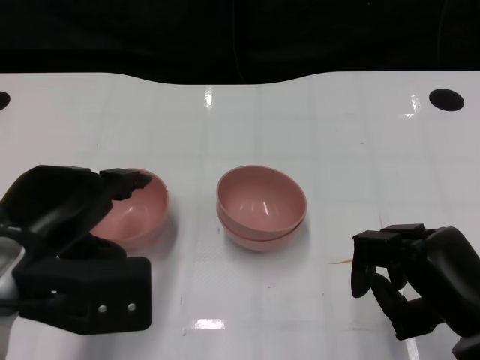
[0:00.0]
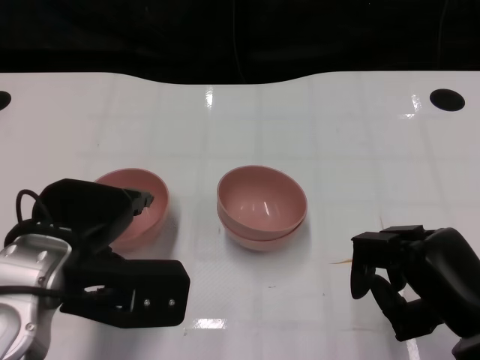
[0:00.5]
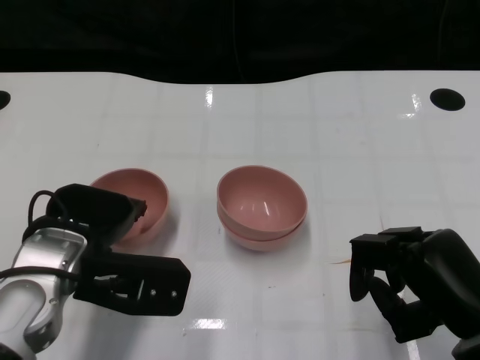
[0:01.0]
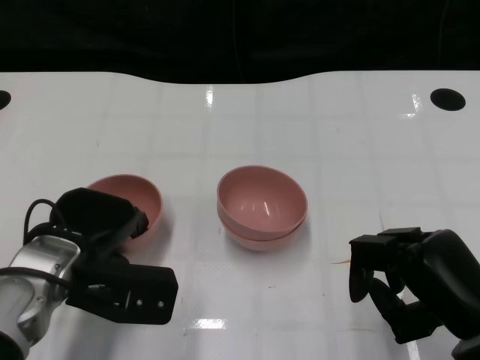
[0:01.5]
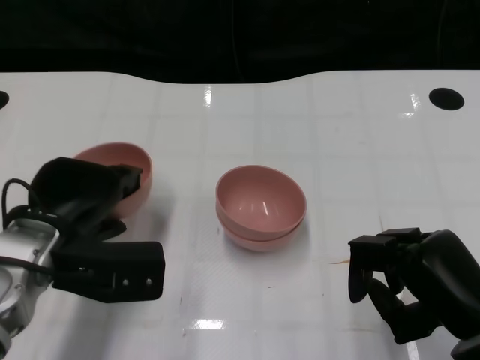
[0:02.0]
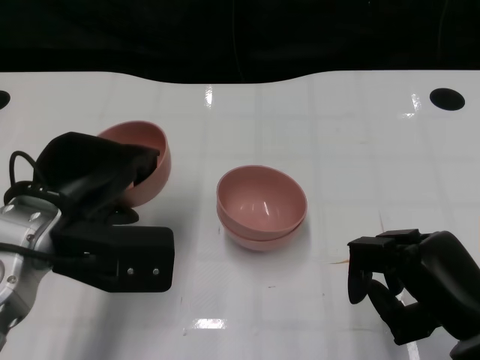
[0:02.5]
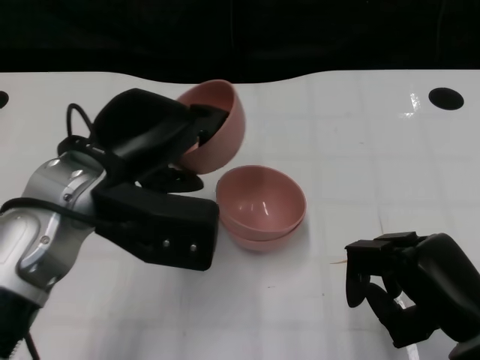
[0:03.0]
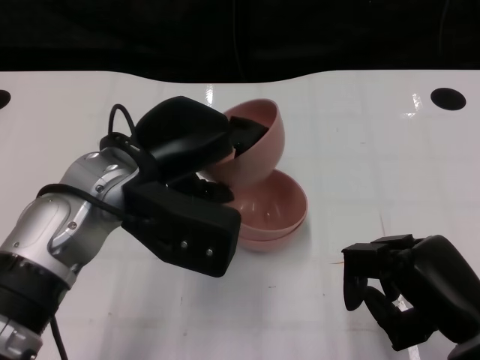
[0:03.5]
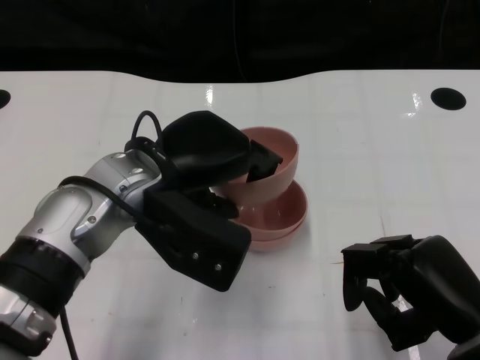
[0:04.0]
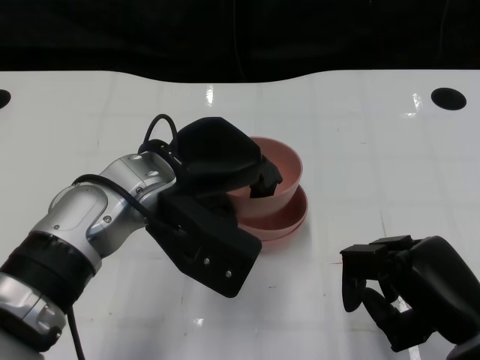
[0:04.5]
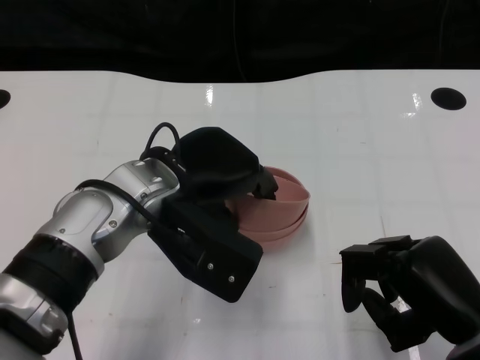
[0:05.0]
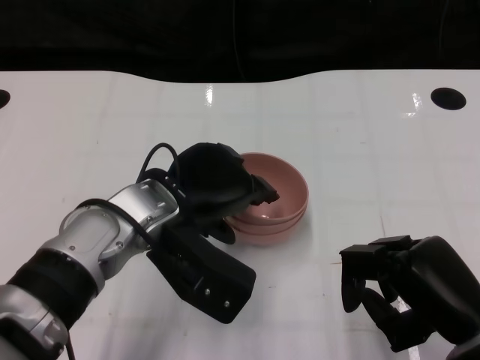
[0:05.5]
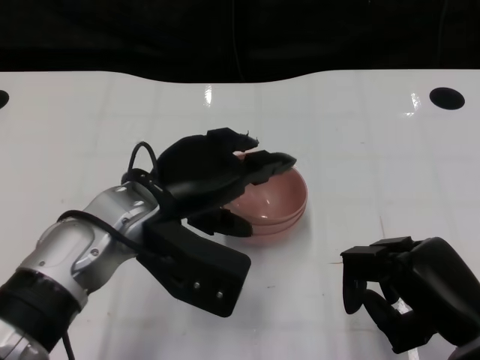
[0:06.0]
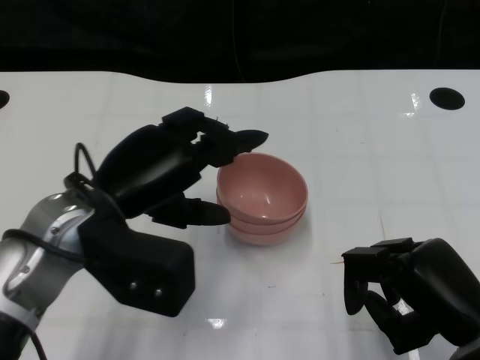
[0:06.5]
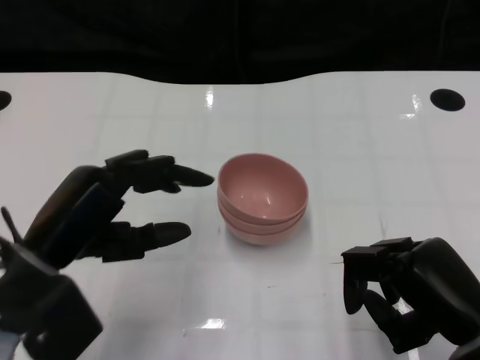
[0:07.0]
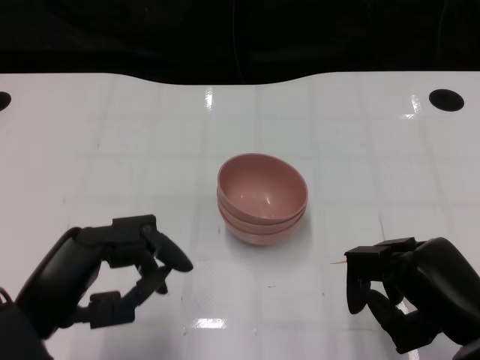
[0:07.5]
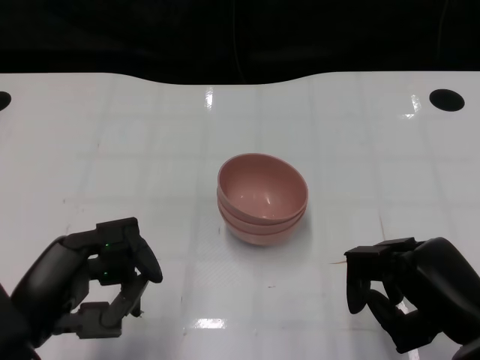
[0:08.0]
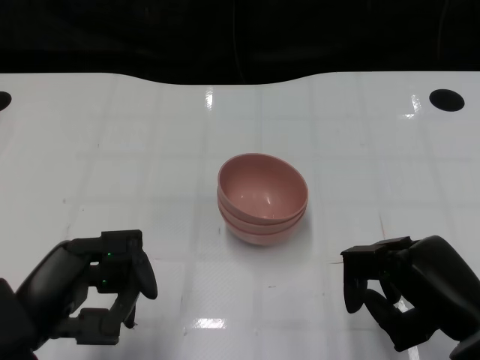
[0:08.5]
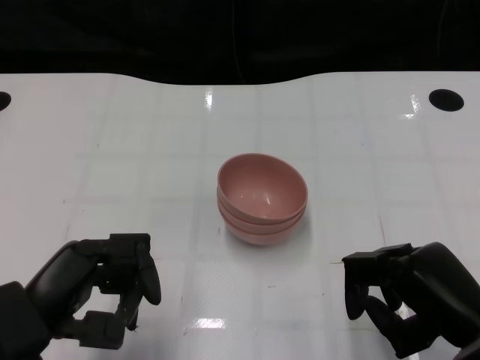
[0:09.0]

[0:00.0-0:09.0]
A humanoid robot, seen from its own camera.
Task of the whole recording: Pick up the bowl on one side of the table and place it on top of the middle bowl, then pick up the bowl on the other side of the table and place it on top of the middle bowls.
Step, 0:02.0 to 0:06.5: Place the bowl on the left onto the bowl in the middle with left gripper.
0:00.0 to 0:02.0: The left hand shifts approximately 5 cm downward and forward.
0:02.0 to 0:04.5: The left hand heads to the right and upward, covering some 10 cm.
0:04.5 to 0:07.0: The left hand is displaced to the left and backward by about 15 cm.
0:07.0 to 0:09.0: The left hand travels backward by roughly 5 cm.

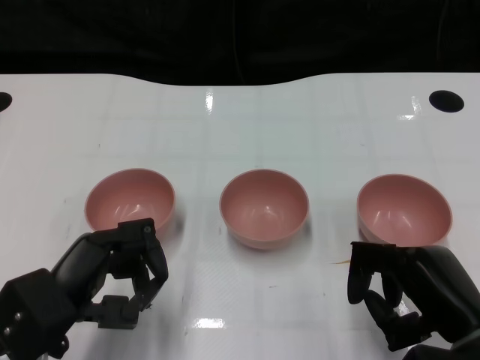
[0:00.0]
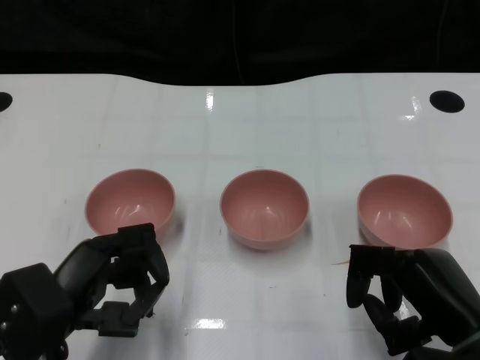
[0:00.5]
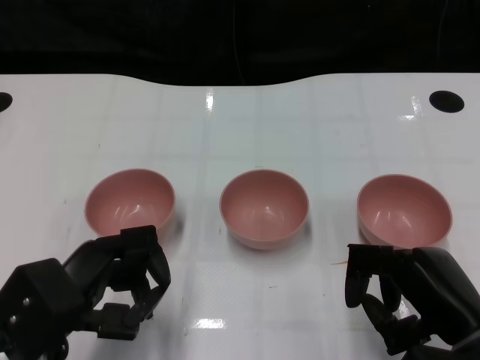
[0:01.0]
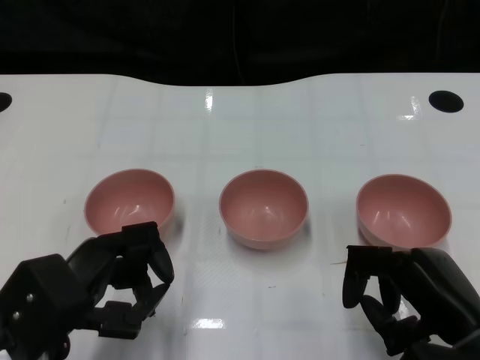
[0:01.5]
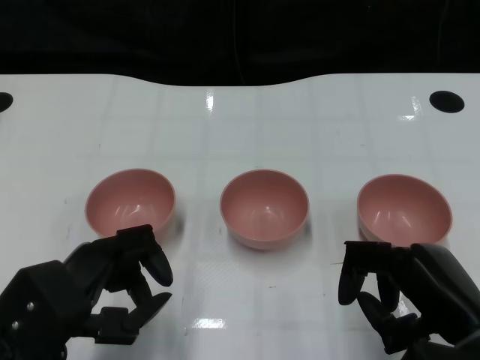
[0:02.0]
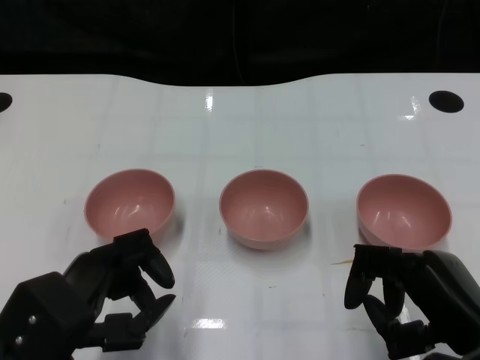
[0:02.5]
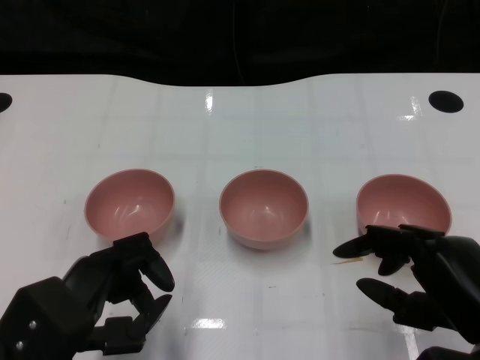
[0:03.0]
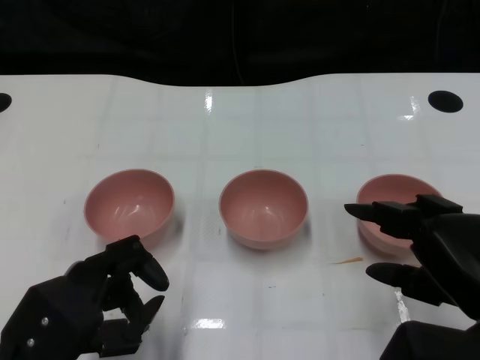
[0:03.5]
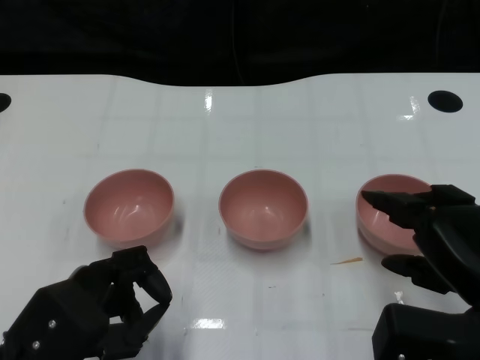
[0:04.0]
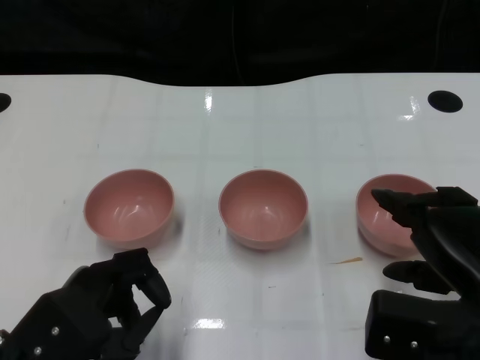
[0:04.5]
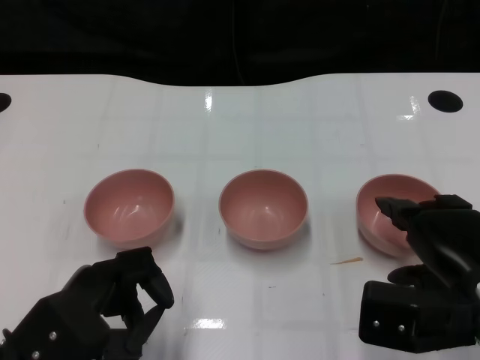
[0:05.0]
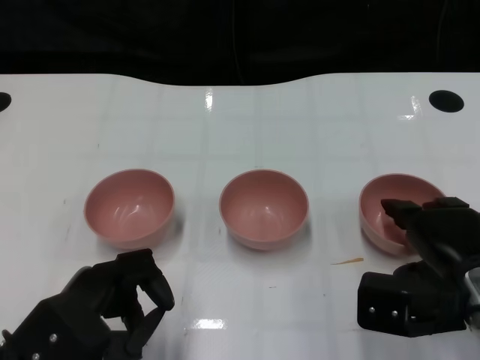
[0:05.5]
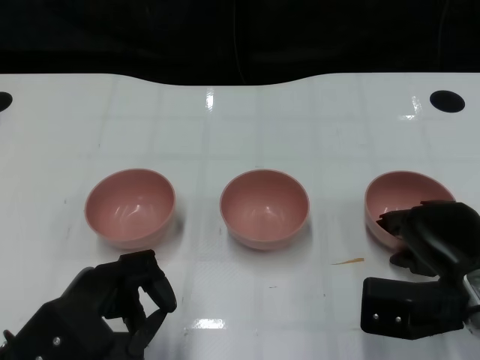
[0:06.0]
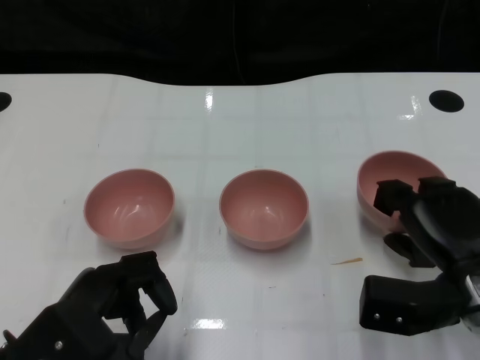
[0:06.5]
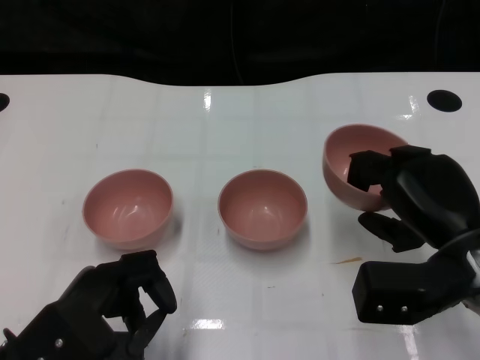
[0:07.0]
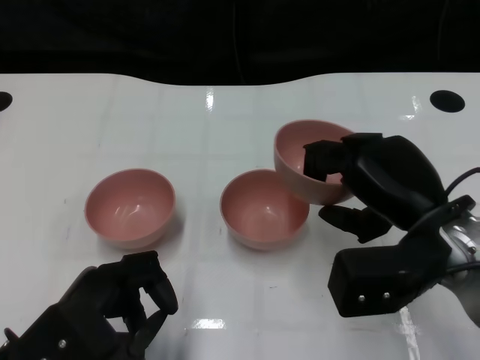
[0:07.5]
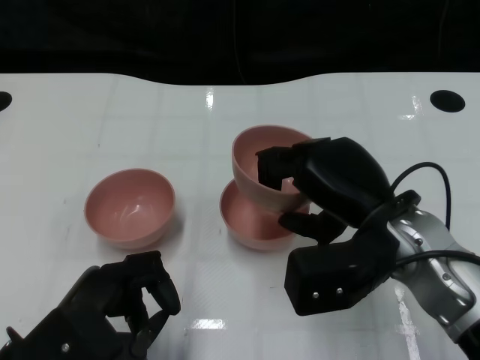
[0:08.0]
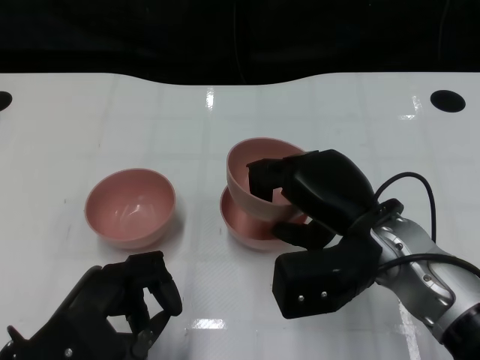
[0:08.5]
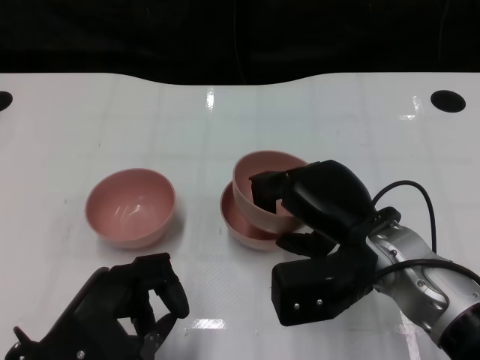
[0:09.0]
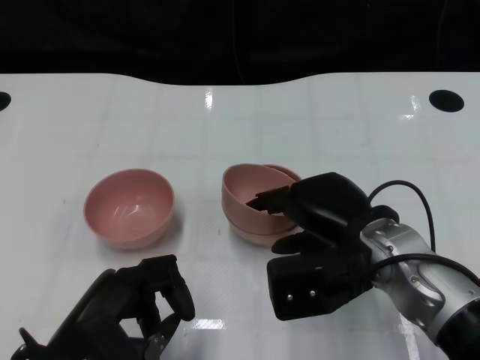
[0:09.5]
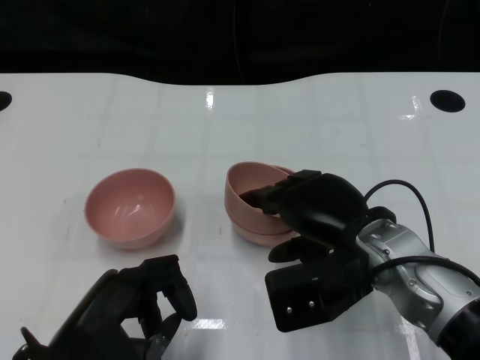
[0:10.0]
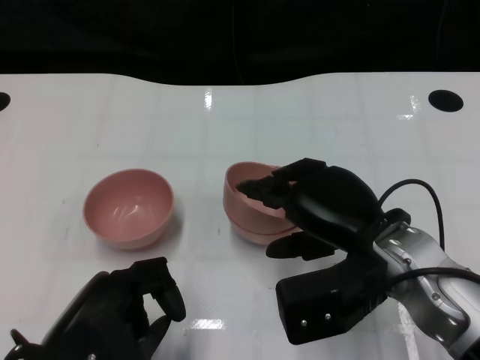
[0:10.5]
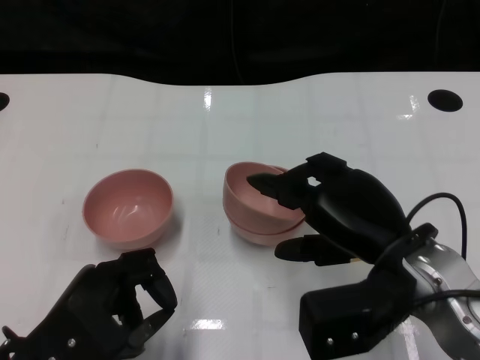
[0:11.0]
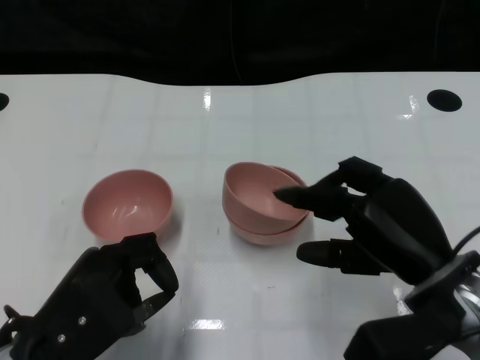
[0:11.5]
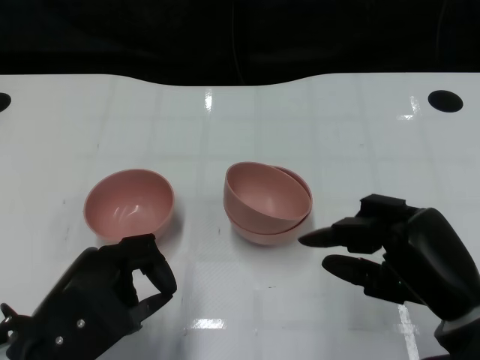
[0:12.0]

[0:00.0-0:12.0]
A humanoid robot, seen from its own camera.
Task of the whole recording: Pick up the bowl on one side of the table and place it on top of the middle bowl, then pick up the bowl on the other side of the table and place it on top of the middle bowls.
Step, 0:03.0 to 0:06.0: Grasp the bowl on the right with the right gripper.
Step, 0:06.5 to 0:11.0: Place the bowl on the right onto the bowl in the middle with right gripper.
0:04.0 to 0:06.0: The right hand shifts approximately 10 cm downward and forward.
0:06.0 to 0:08.0: The right hand moves to the left and upward, about 10 cm.
0:08.0 to 0:10.0: The hands move only a little.
0:10.0 to 0:12.0: The right hand travels to the right and backward by approximately 10 cm.

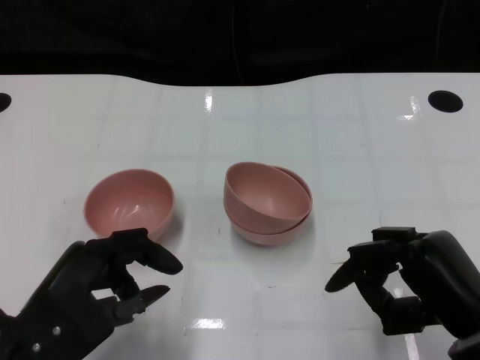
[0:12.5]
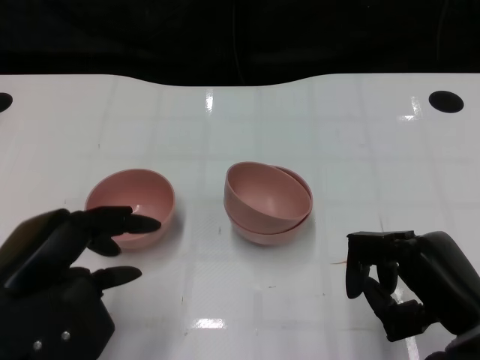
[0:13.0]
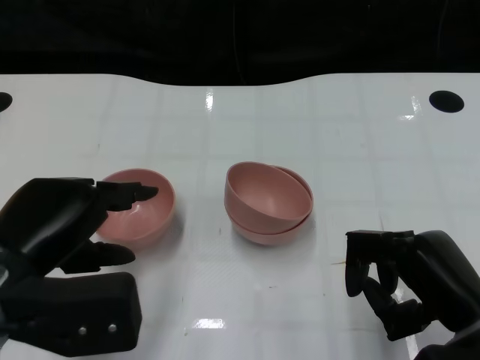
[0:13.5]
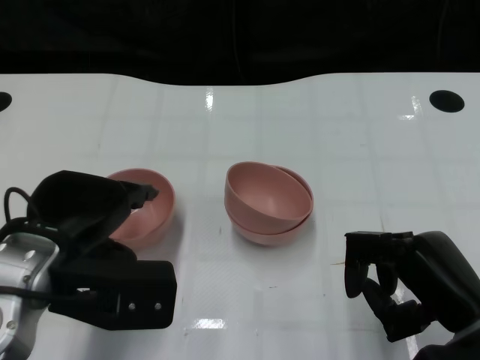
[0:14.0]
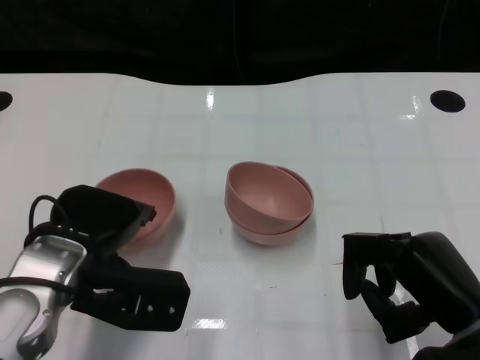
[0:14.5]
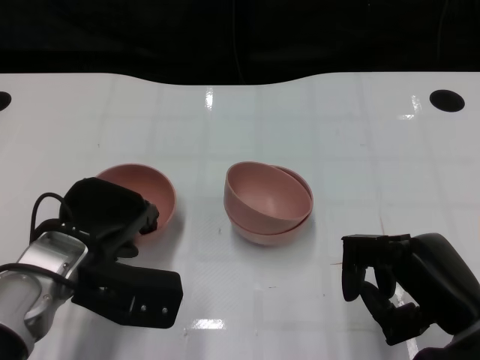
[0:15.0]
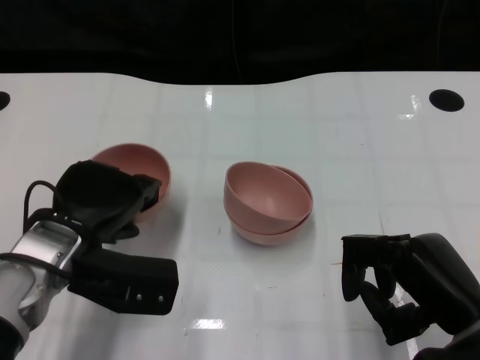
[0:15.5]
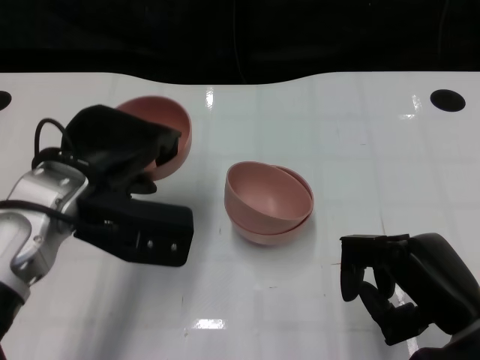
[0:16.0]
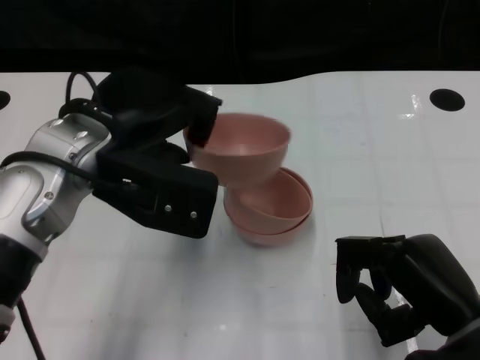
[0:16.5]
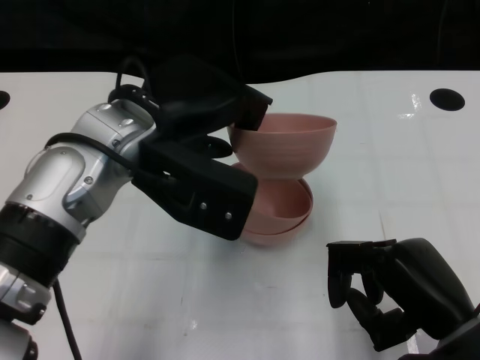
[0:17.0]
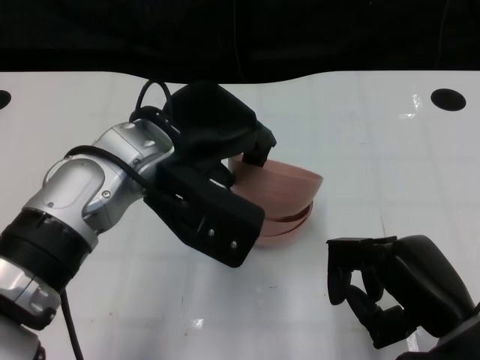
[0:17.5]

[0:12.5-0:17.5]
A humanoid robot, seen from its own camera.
Task of the whole recording: Pick up the bowl on one side of the table and place it on top of the middle bowl, then pick up the bowl on the other side of the table and place it on top of the middle bowls.
Step, 0:12.5 to 0:15.0: Grasp the bowl on the left with the left gripper.
0:12.5 to 0:15.0: The left hand heads forward, covering some 10 cm.
0:15.0 to 0:17.5: The left hand moves upward and to the right, roughly 15 cm.
